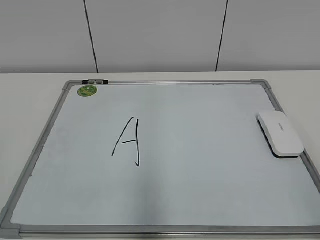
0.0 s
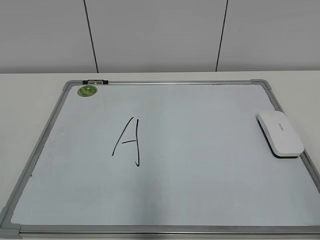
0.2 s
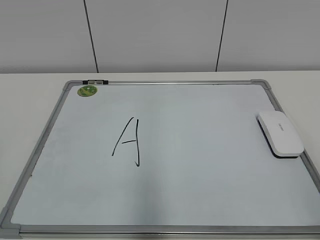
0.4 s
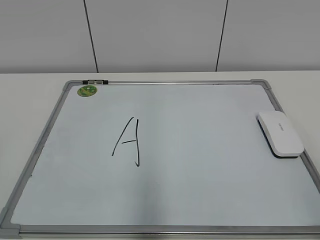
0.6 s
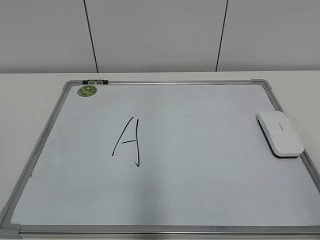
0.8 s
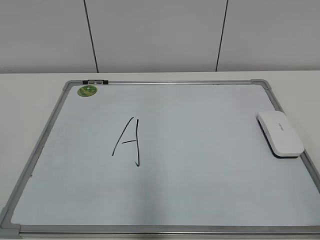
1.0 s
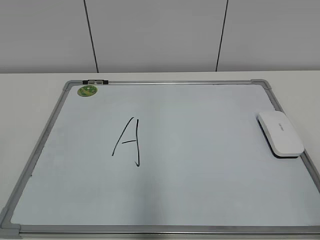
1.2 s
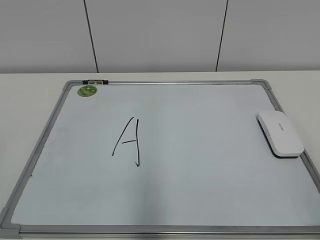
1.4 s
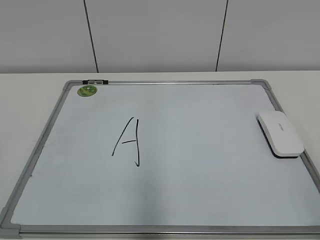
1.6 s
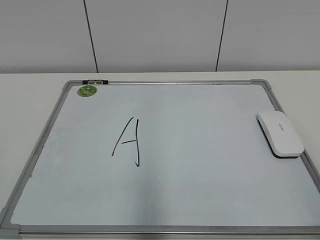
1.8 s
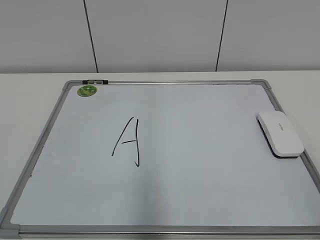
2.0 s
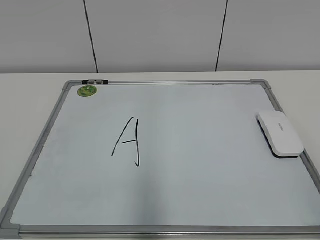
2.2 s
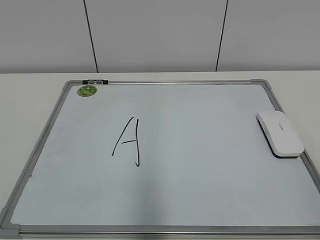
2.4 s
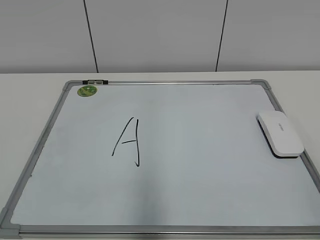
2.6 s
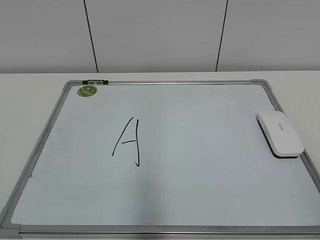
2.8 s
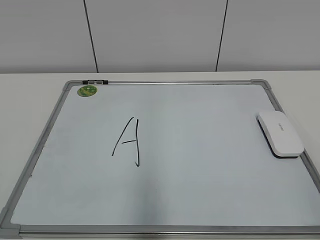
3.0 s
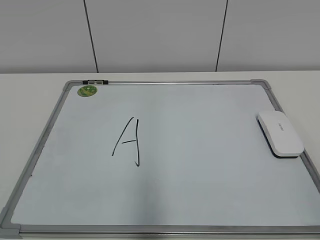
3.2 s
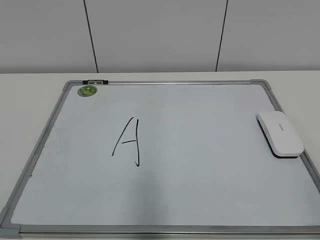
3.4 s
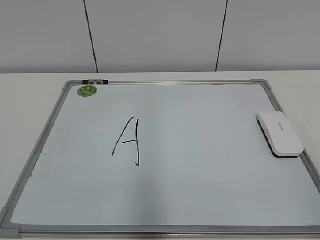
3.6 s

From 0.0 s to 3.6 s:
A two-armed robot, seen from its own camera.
Task of the whole recording: pick up the eraser on the blackboard and erase the letter "a".
From 0.0 s to 1.8 s: The two grippers keep their place.
